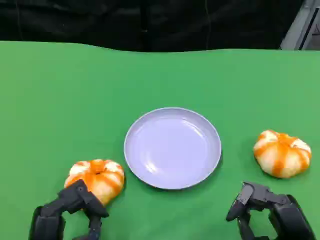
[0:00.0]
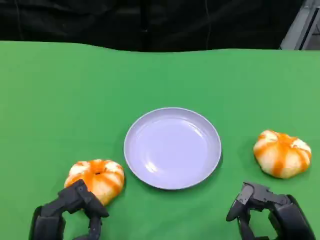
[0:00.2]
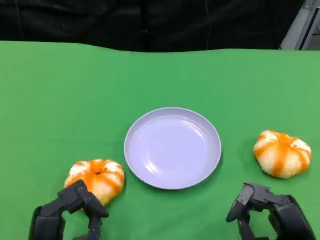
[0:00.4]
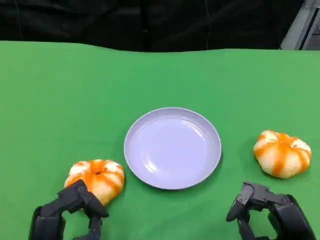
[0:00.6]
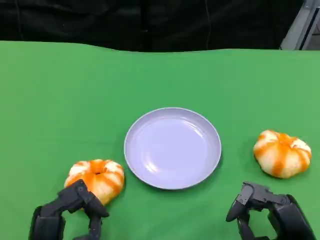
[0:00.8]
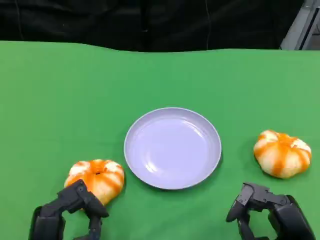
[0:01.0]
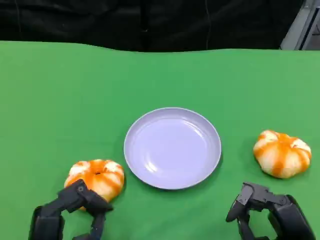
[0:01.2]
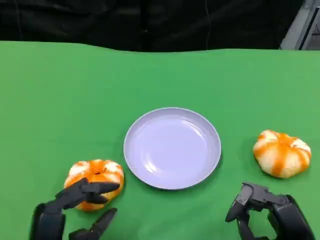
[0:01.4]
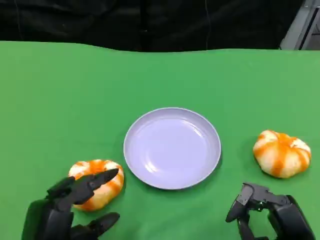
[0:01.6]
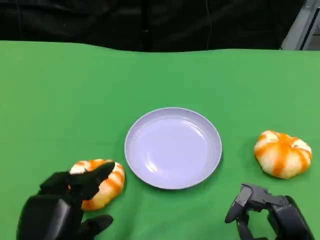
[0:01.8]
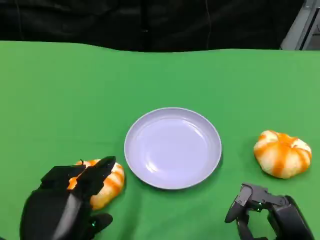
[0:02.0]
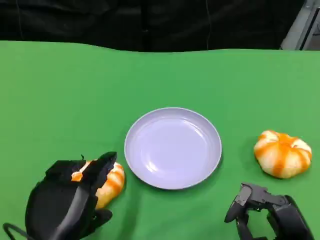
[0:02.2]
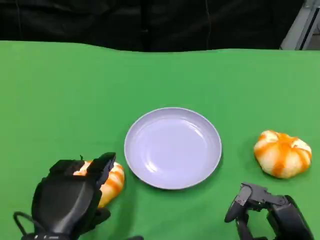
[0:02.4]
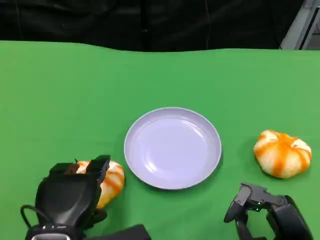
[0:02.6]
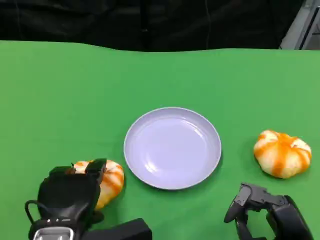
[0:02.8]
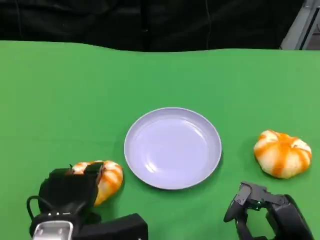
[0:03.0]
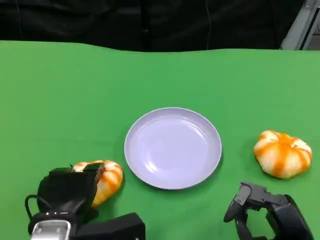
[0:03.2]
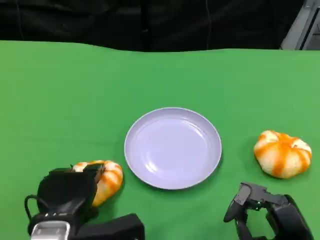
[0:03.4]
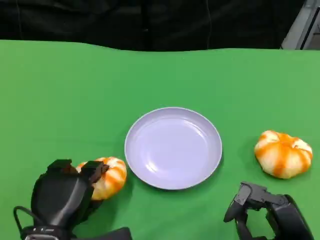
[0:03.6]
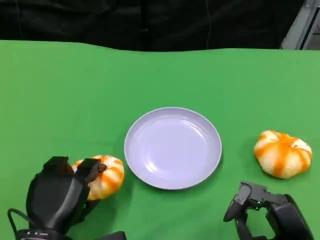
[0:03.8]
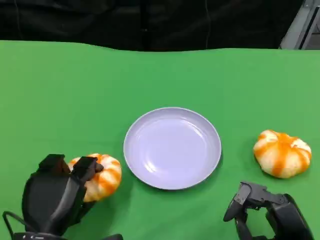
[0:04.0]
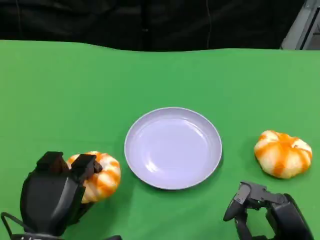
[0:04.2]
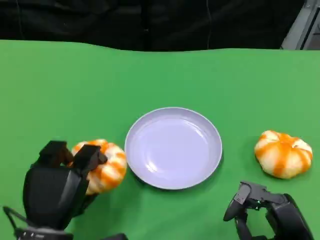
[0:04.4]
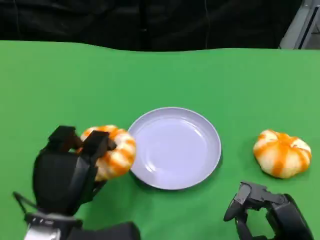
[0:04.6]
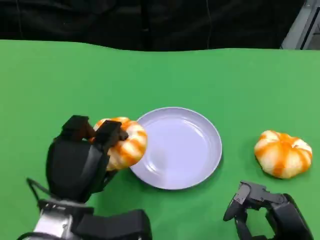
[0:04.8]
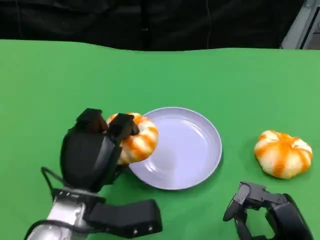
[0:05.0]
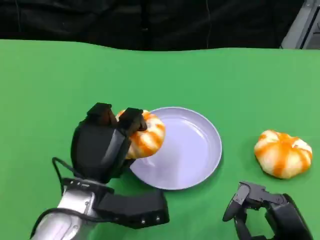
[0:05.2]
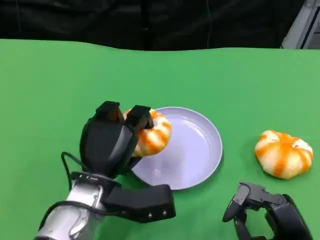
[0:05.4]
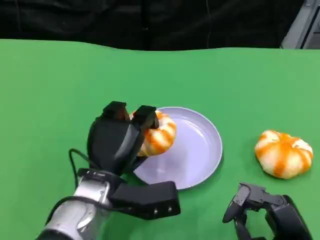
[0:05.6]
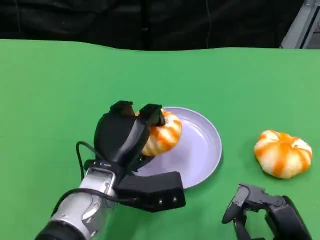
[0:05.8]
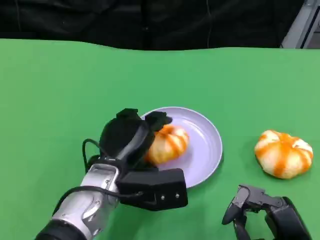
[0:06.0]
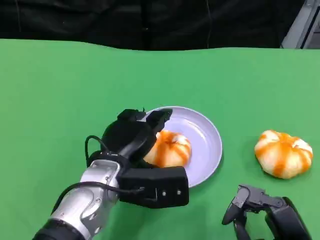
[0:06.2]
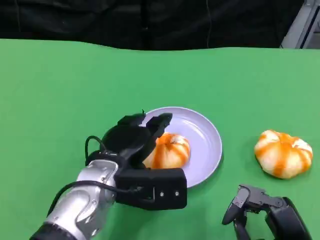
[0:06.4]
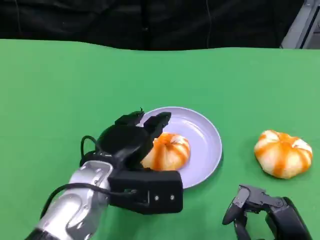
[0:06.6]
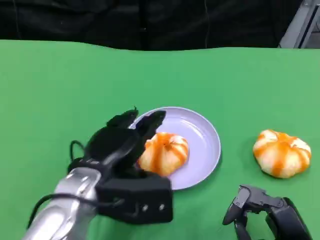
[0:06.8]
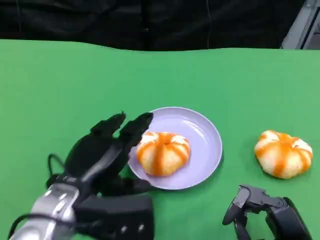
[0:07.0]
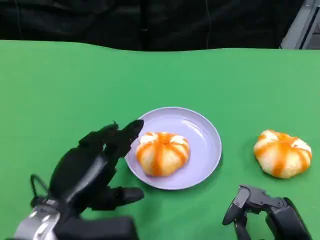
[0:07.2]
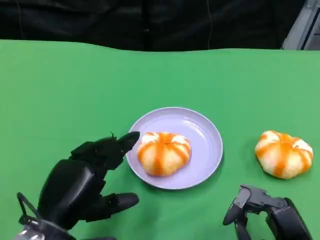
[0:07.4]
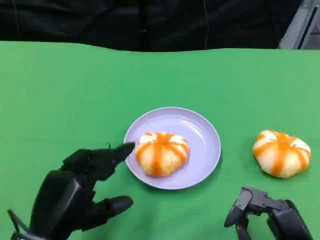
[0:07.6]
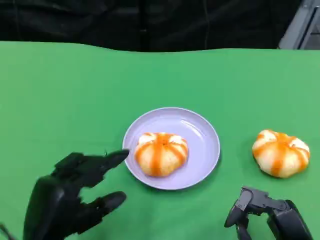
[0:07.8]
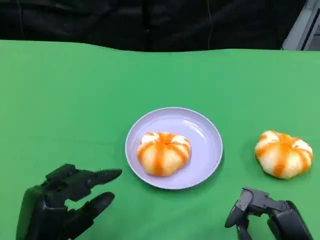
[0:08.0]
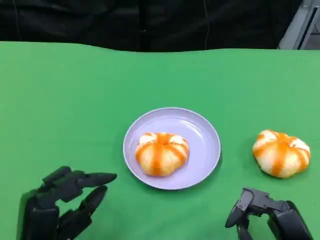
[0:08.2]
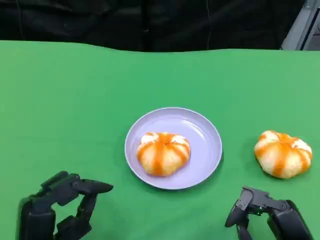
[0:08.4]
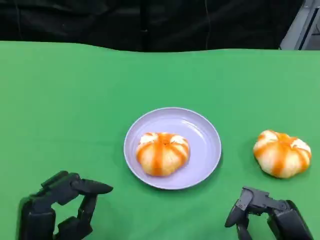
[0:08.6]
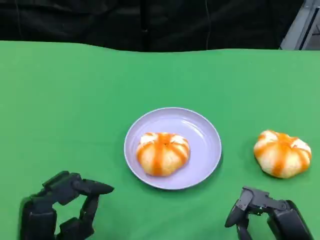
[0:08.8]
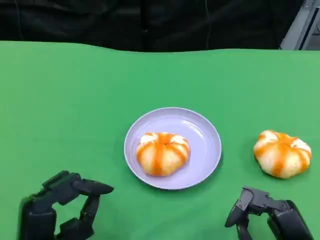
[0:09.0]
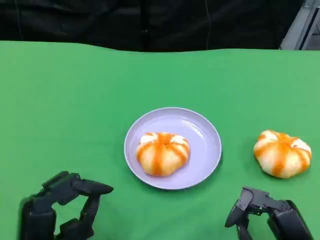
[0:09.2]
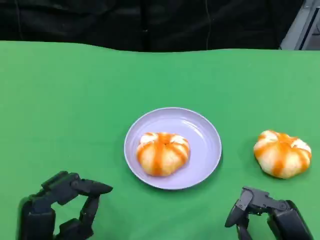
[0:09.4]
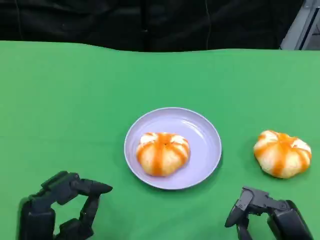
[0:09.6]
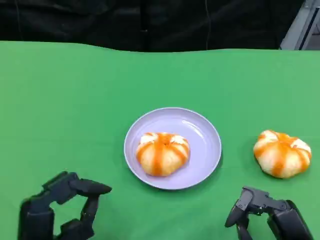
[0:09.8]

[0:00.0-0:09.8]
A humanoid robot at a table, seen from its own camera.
Task of the whole recording: Grasp the bread from the table and place it into the plate.
0:00.0 to 0:01.4: There are only small adjustments of the hands.
0:01.4 to 0:02.8: The left hand ends up about 5 cm from where it was.
0:04.2 to 0:05.6: The left hand moves to the right and forward, some 10 cm.
0:05.6 to 0:07.0: The left hand moves to the left, some 5 cm.
0:07.0 to 0:08.4: The left hand is displaced backward and downward by about 10 cm.
0:08.4 to 0:09.8: The hands move only a little.

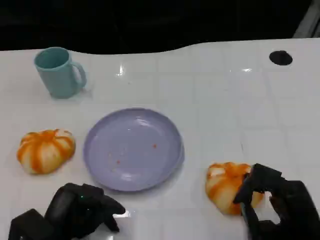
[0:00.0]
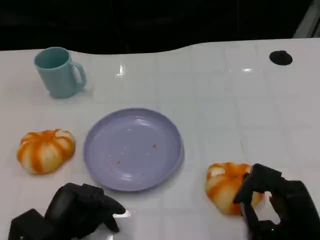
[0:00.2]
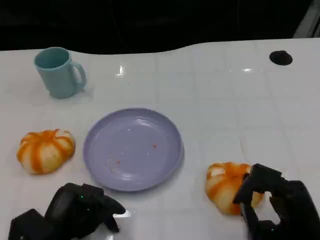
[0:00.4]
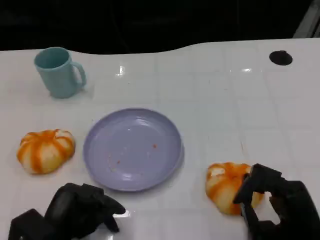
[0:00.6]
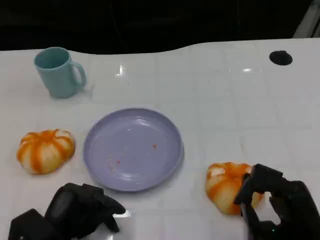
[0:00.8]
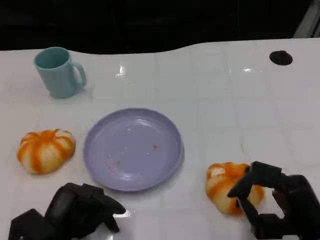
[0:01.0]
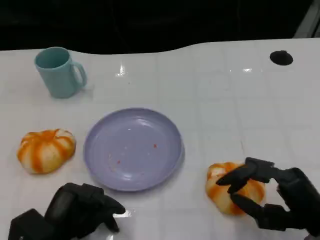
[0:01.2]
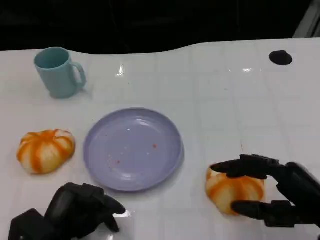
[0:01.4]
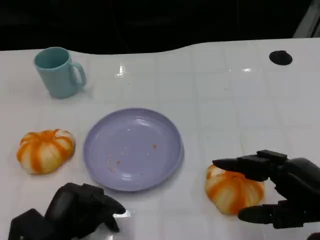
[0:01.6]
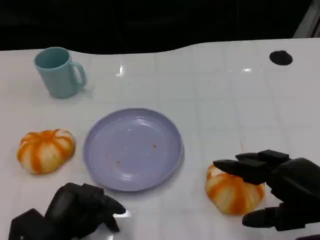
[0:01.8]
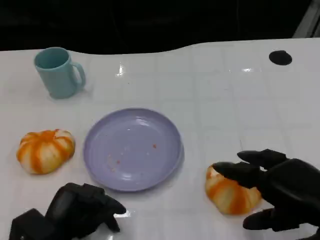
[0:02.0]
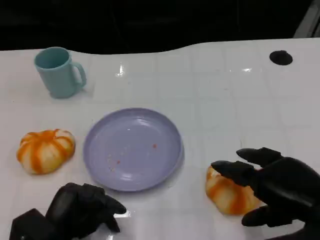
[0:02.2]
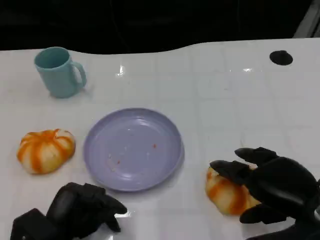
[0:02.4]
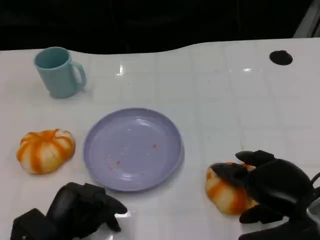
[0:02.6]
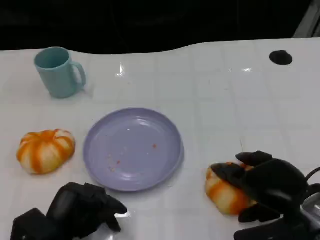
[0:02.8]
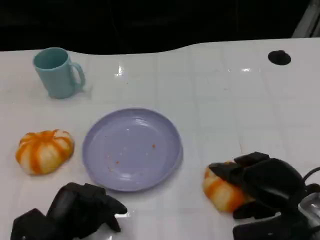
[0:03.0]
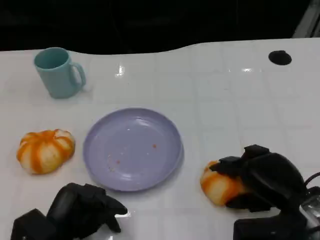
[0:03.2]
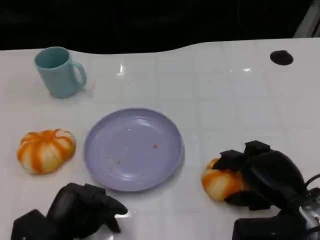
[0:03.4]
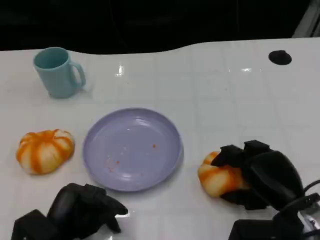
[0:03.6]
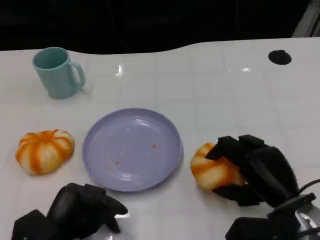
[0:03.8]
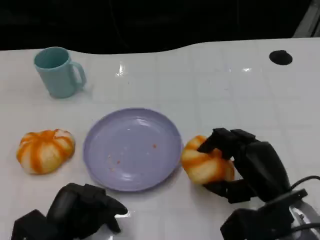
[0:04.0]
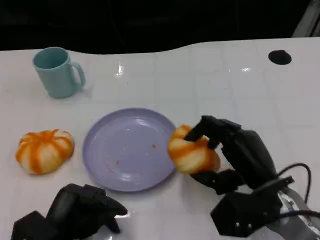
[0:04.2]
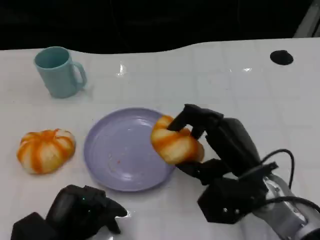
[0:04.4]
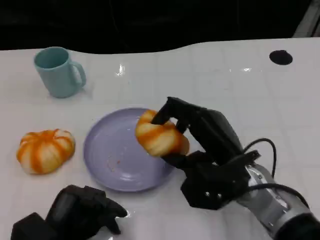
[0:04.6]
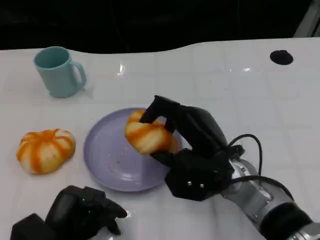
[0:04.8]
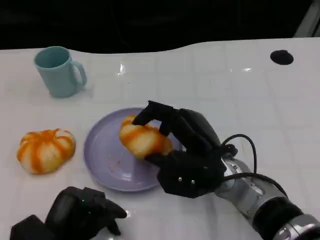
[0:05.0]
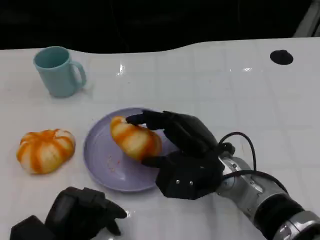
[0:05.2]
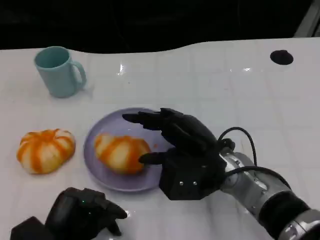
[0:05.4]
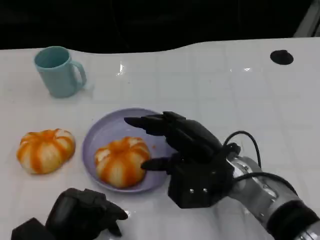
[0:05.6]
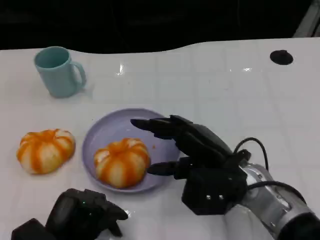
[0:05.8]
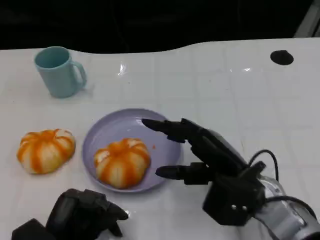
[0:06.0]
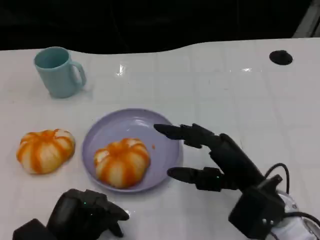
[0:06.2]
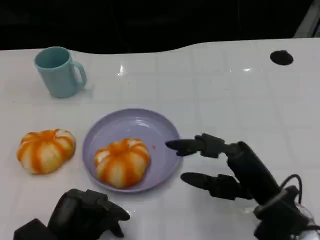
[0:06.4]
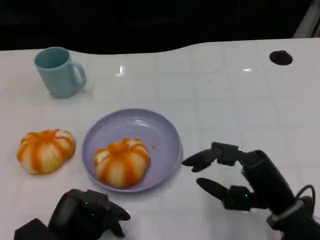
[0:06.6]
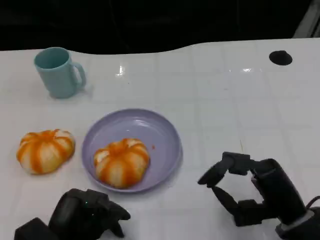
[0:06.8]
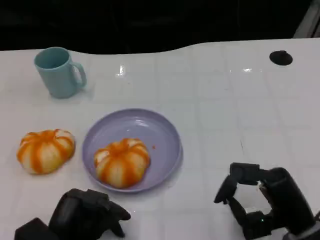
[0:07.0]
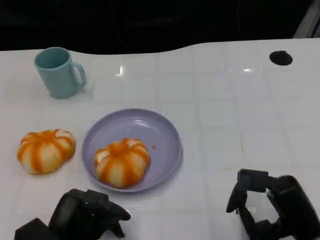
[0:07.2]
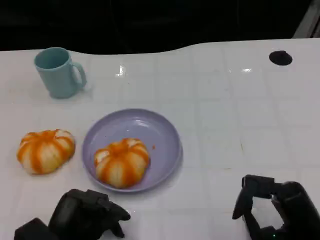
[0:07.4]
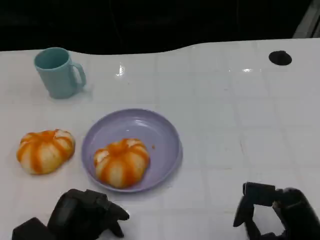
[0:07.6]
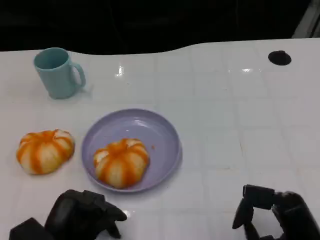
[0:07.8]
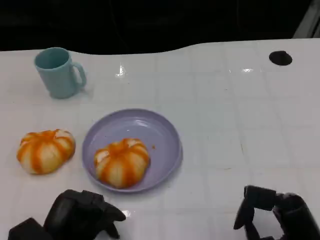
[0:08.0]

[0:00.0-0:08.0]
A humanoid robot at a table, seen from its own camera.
Task of the whole recording: Grasp the bread from the table and place it into the plate.
0:00.0 to 0:01.6: The right hand shifts about 10 cm upward.
0:01.6 to 0:03.2: The right hand shifts about 5 cm downward.
0:03.2 to 0:04.8: The right hand is displaced to the left by some 10 cm.
0:04.8 to 0:06.4: The right hand goes approximately 10 cm to the right and backward.
0:06.4 to 0:08.0: The right hand goes some 5 cm backward.

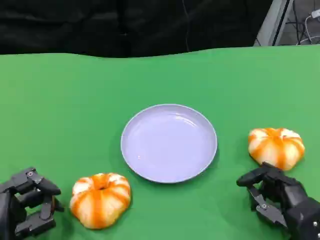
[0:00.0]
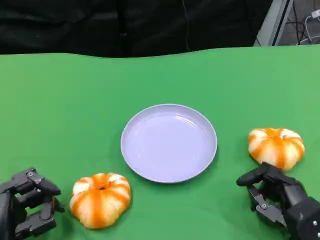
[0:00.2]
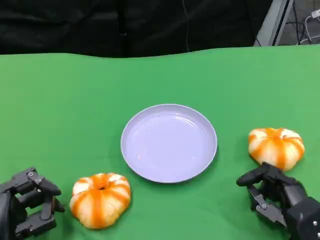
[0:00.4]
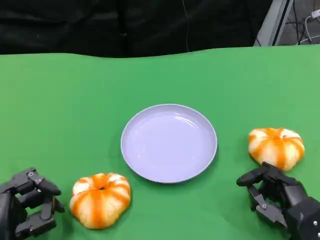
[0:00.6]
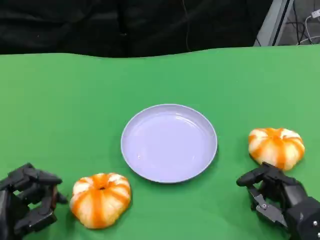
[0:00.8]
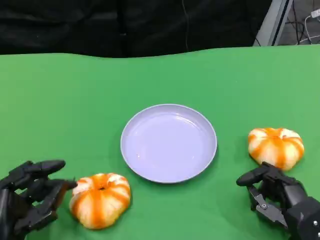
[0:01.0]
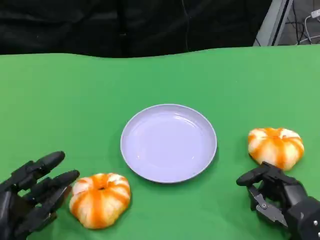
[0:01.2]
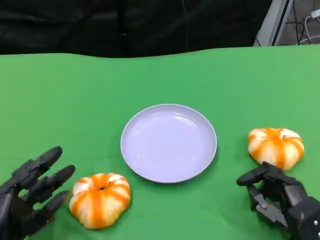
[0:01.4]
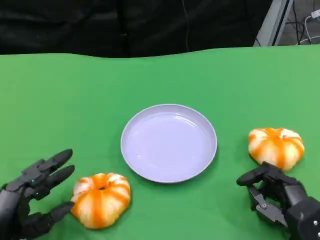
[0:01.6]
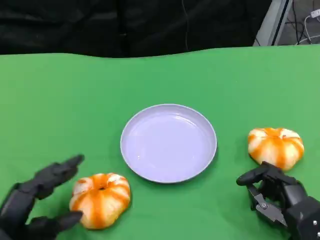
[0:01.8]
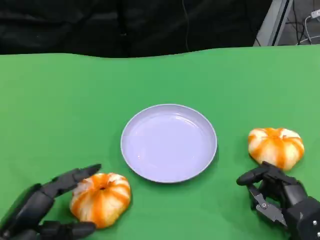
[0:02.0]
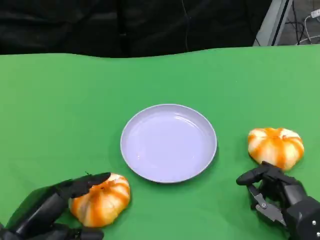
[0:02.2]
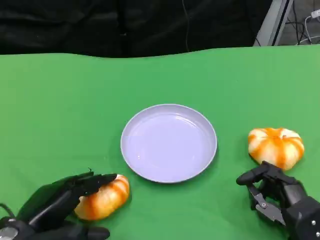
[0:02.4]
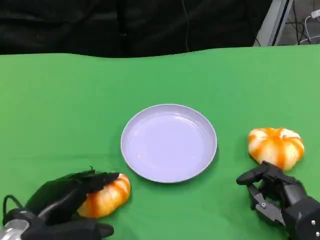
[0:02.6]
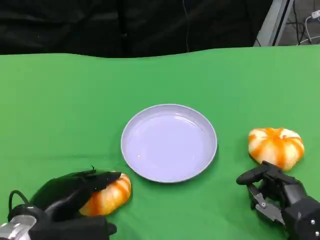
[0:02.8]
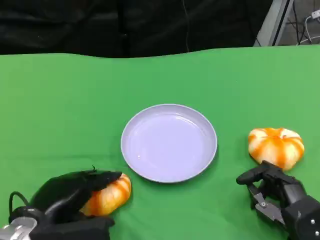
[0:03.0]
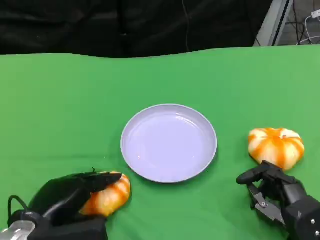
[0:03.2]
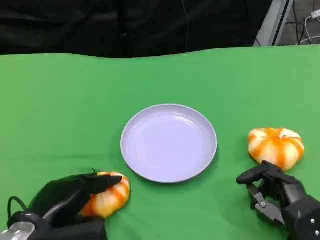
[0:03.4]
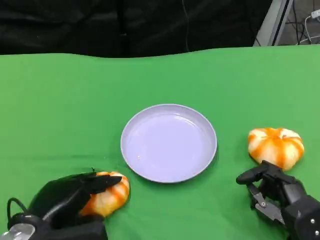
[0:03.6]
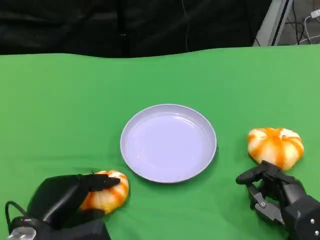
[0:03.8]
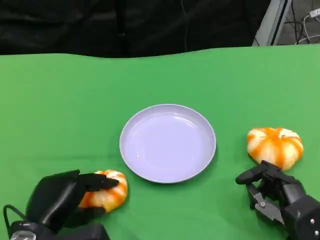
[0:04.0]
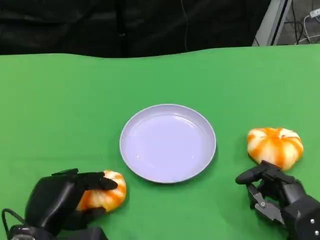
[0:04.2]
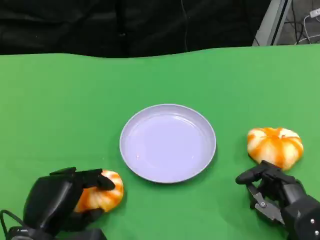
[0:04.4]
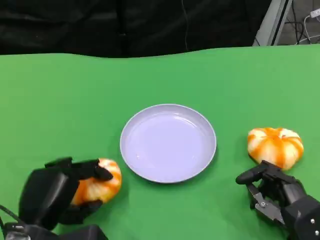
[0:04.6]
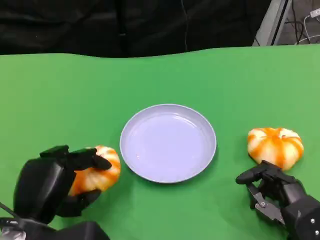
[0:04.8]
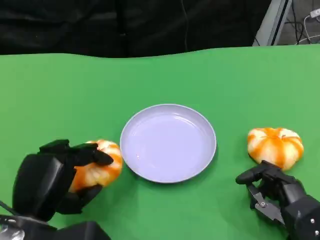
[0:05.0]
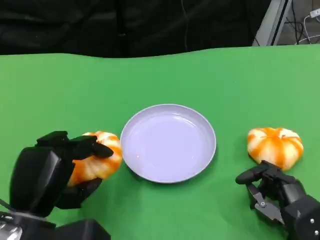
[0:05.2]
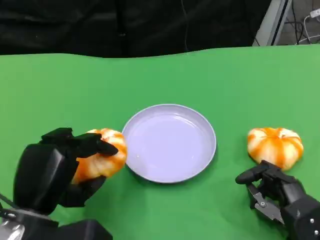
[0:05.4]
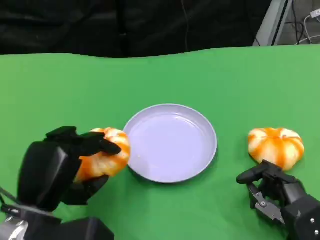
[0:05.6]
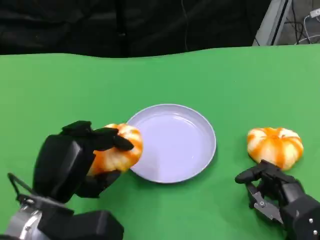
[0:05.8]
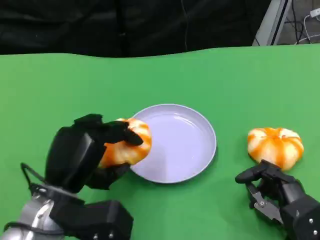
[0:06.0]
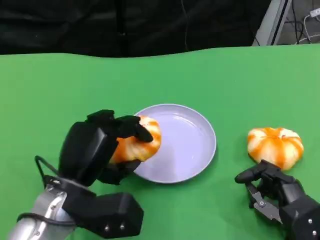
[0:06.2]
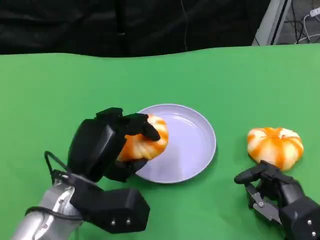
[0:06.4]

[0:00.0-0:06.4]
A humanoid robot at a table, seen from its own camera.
Task of the whole recording: Grasp the bread from the table and place it into the plate.
0:01.6 to 0:03.2: The left hand is displaced to the right by some 5 cm.
0:04.8 to 0:06.4: The left hand goes some 10 cm to the right and forward.